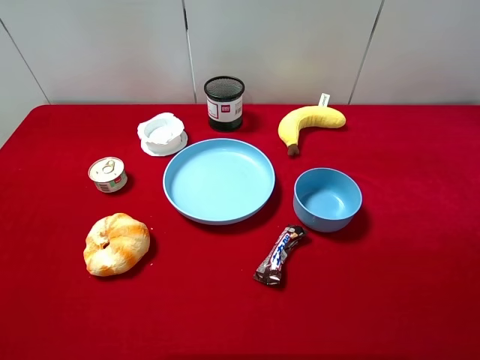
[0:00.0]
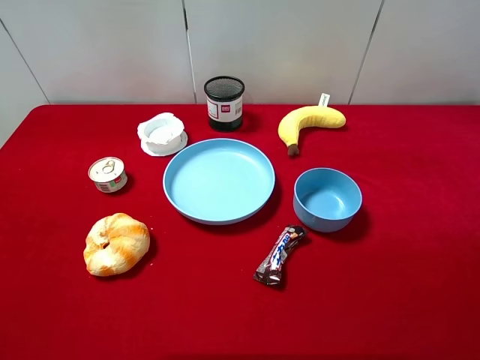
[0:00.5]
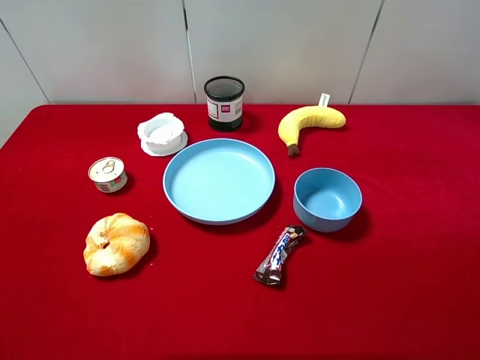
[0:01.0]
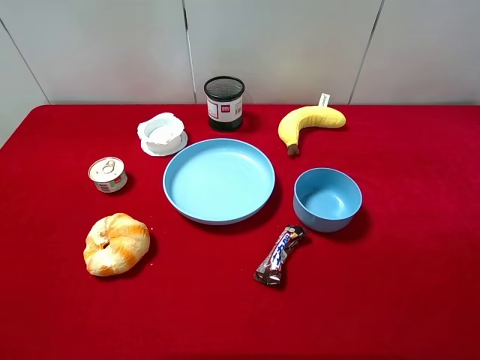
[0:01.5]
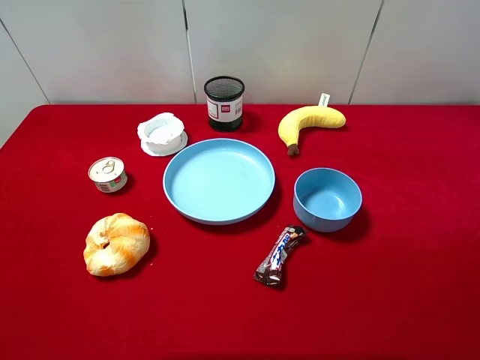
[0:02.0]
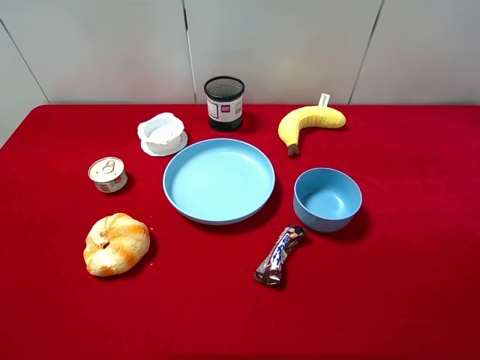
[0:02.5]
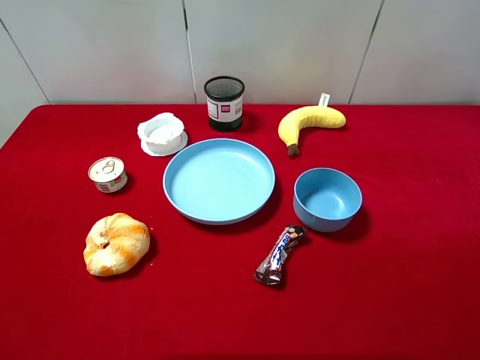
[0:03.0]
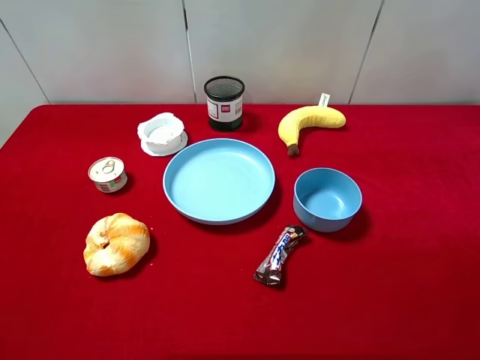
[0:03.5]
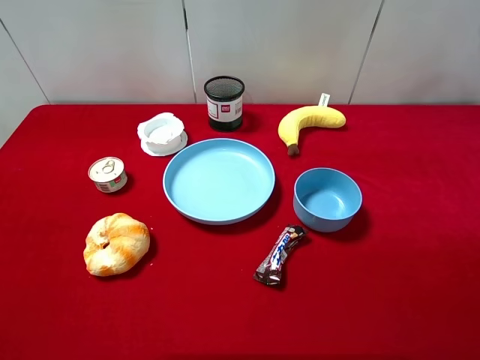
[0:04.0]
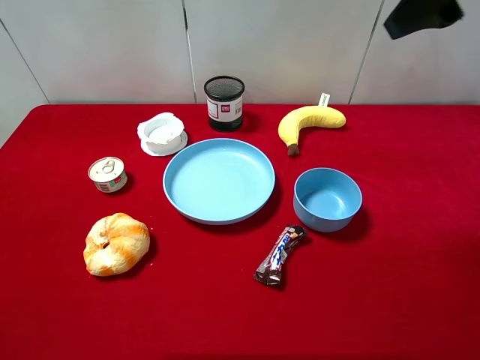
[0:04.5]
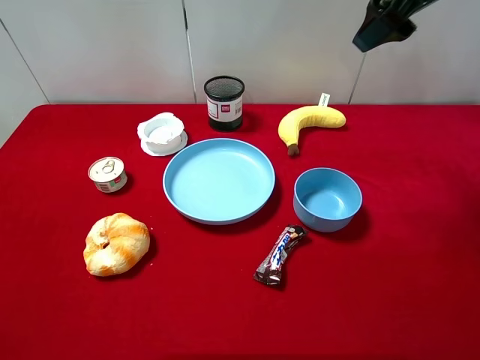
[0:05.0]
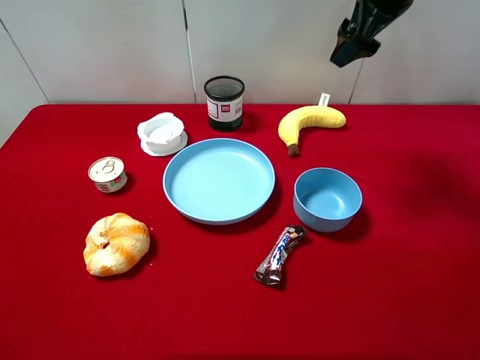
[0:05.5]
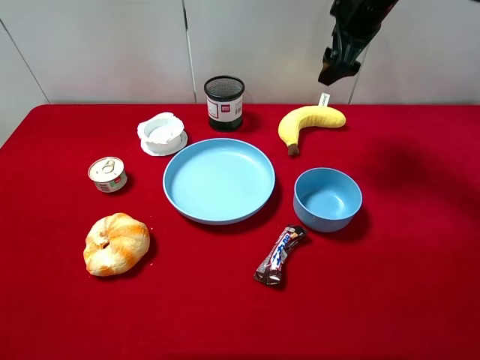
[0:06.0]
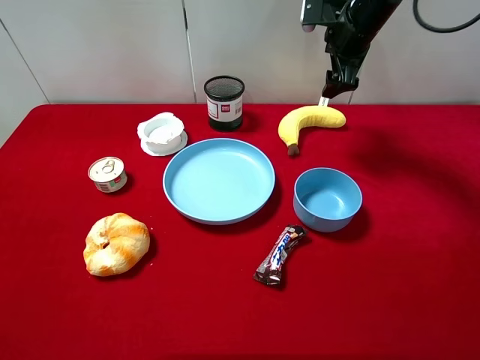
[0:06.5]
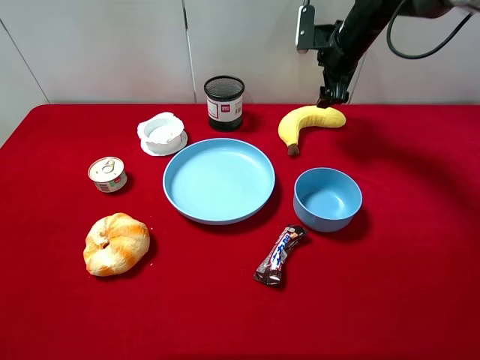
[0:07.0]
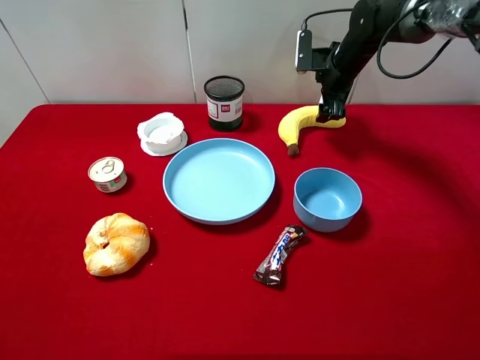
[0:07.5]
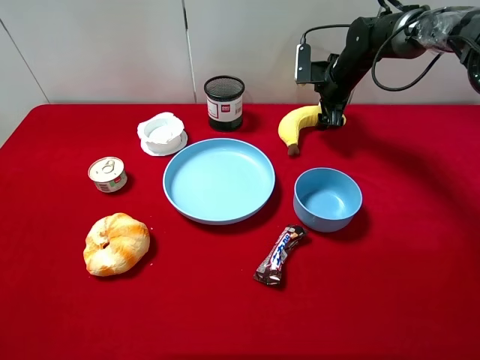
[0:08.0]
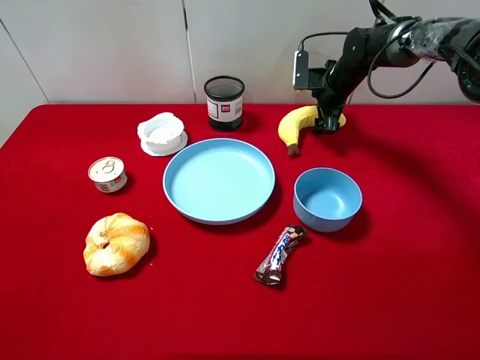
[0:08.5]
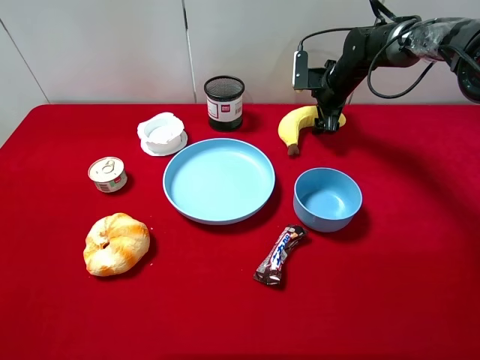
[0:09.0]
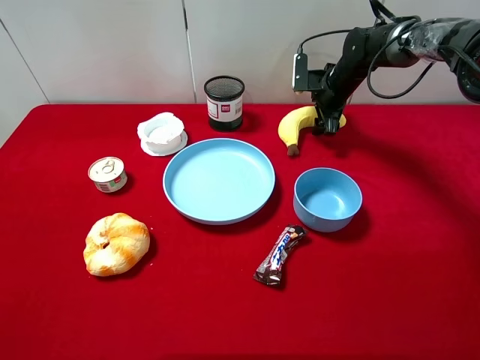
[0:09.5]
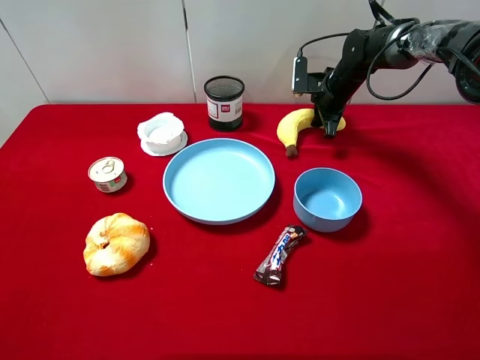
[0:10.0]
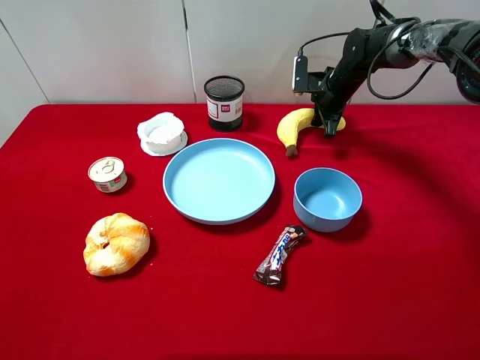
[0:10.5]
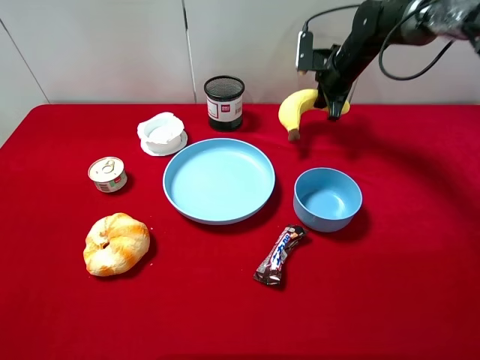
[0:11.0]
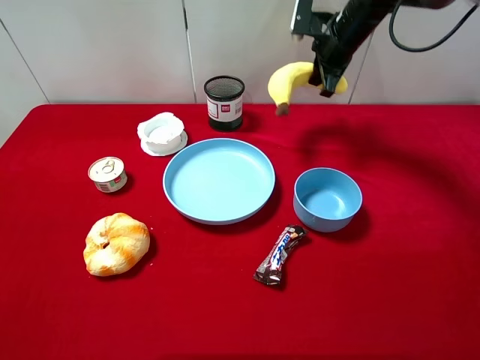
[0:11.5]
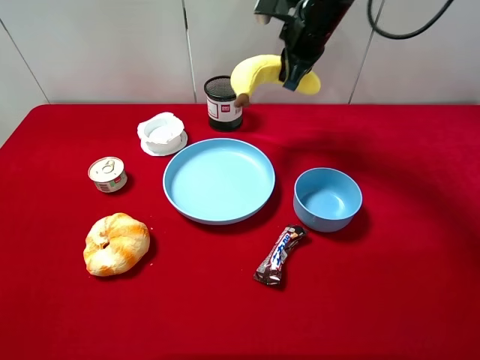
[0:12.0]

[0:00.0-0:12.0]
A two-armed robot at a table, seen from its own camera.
Task of the whole recording: pick up an item with a gripper and place it in a random container on the desktop.
0:00.0 to 0:02.0: Both grippers stay about where they are.
0:04.0 to 0:06.0: The right gripper is displaced forward, downward and to the left by roughly 30 cm.
0:06.0 to 0:08.0: The right gripper heads downward and forward, covering roughly 20 cm.
0:08.0 to 0:10.0: The right gripper closes its fingers.
0:10.0 to 0:12.0: The right gripper goes about 20 cm upward, to the left and backward.

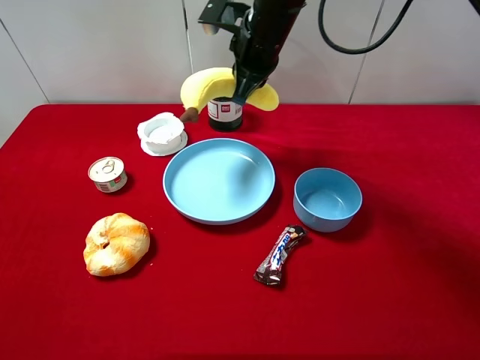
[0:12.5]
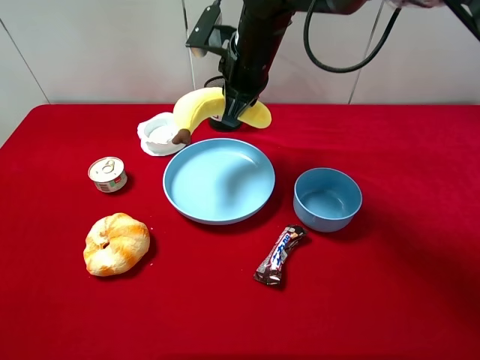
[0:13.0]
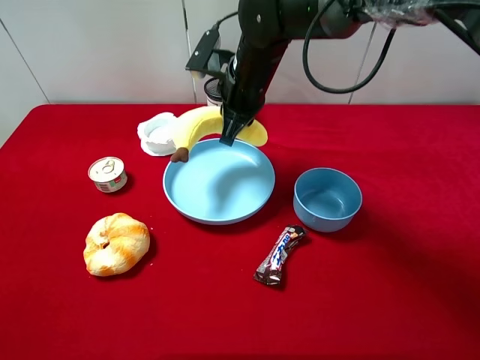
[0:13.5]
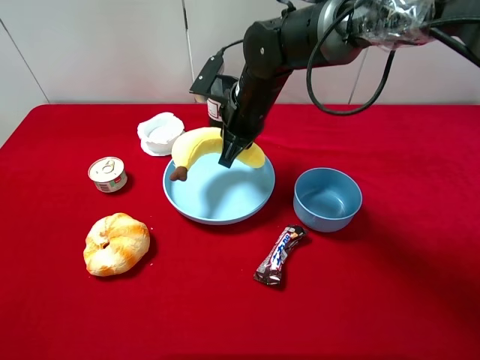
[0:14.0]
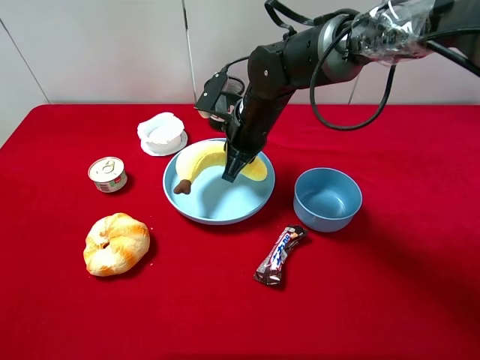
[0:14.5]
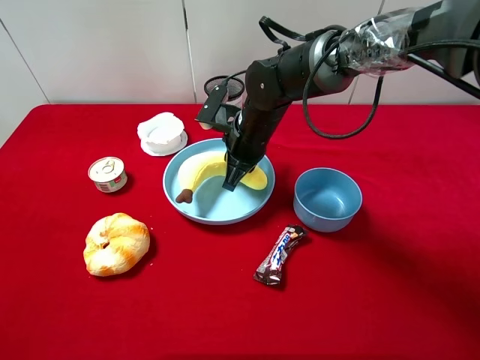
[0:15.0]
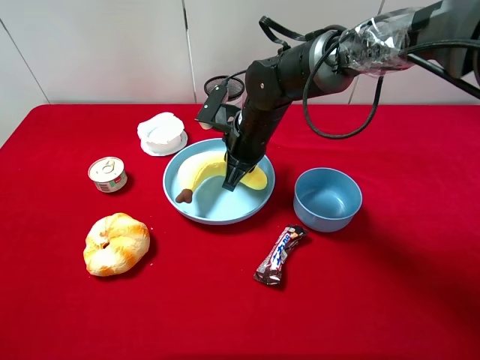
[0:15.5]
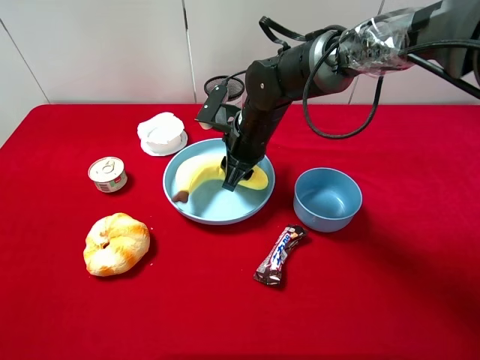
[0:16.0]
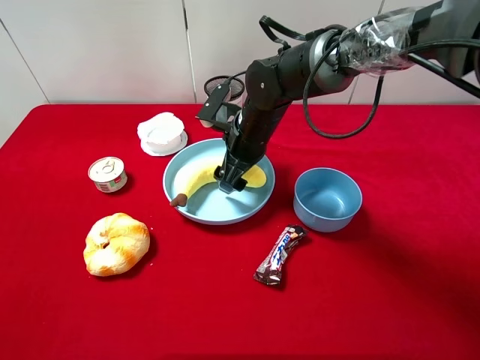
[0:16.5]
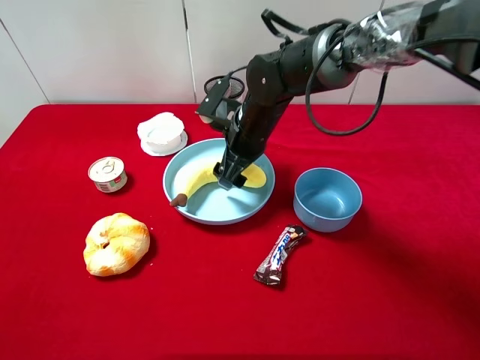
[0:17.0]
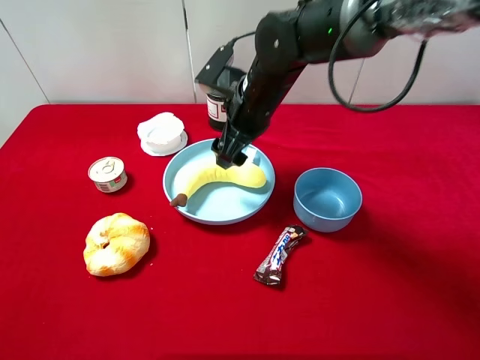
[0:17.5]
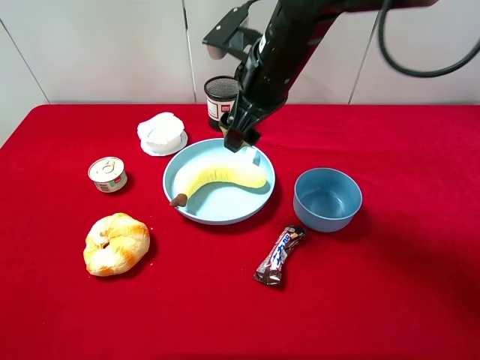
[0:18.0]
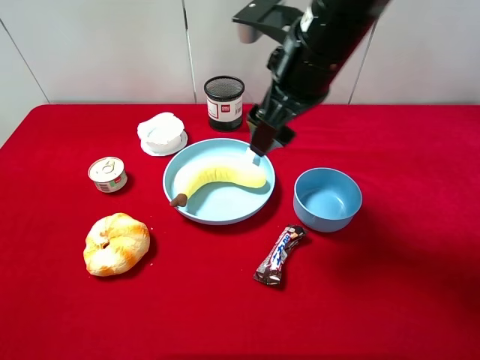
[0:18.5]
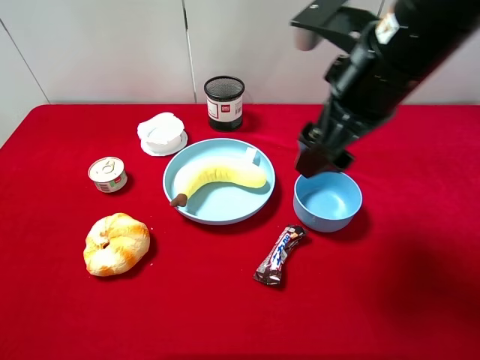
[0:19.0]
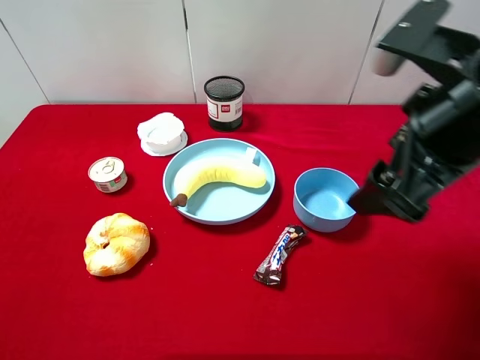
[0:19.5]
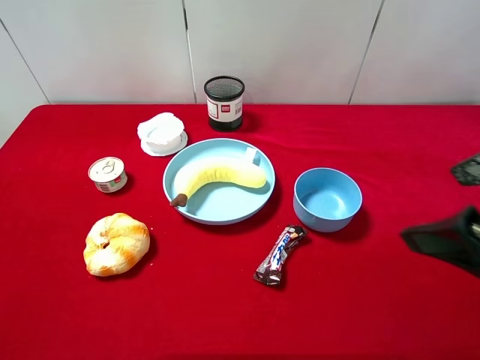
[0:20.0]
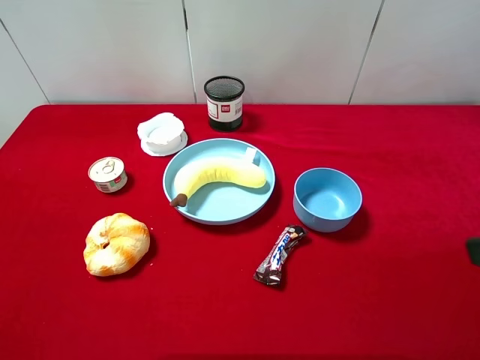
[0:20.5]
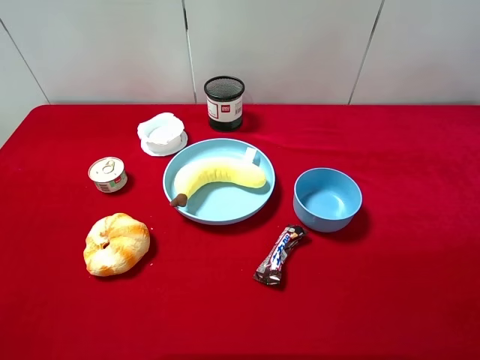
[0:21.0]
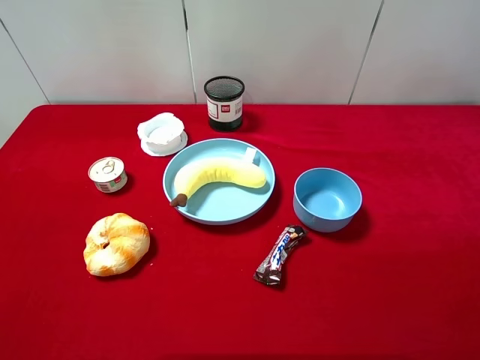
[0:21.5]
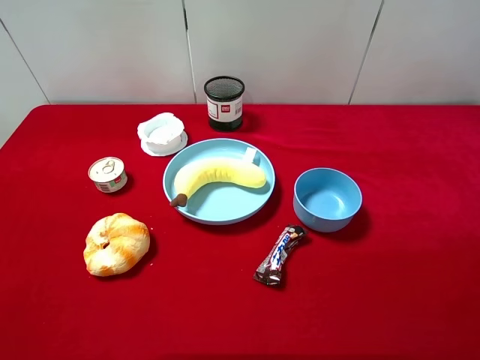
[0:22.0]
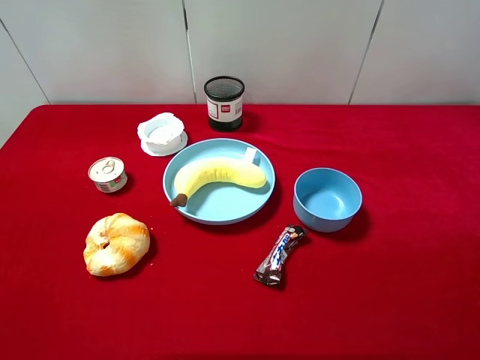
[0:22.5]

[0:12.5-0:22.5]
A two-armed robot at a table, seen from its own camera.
Task of the whole recording: pick up an item with a gripper and place it in a random container on the desktop.
0:12.5 to 0:14.5: The right gripper moves downward, some 10 cm.
0:14.5 to 0:16.5: The right gripper opens up.
0:16.5 to 0:18.5: The right gripper shifts about 20 cm upward and backward.
0:18.5 to 0:20.5: The right gripper travels backward and to the right by roughly 30 cm.
